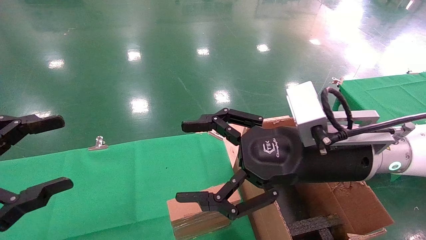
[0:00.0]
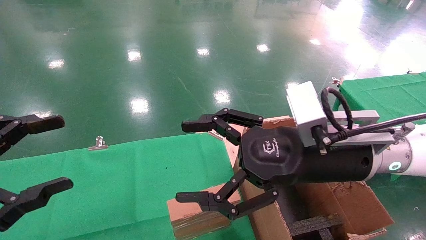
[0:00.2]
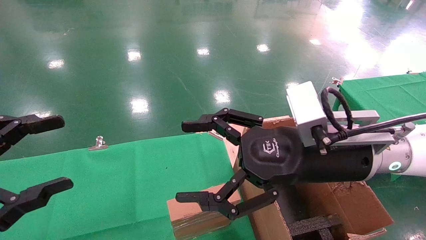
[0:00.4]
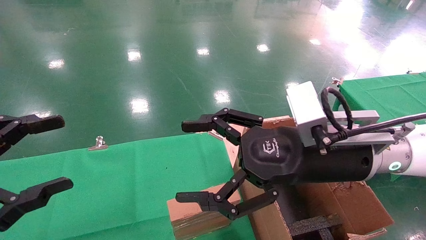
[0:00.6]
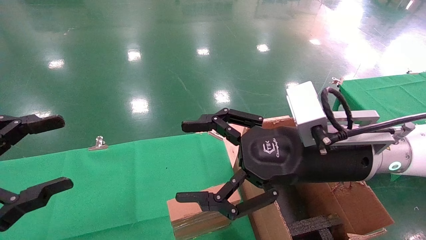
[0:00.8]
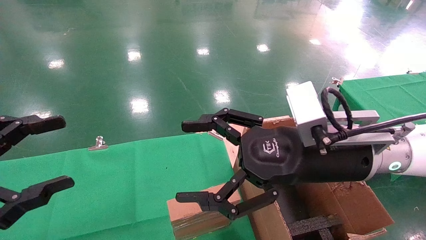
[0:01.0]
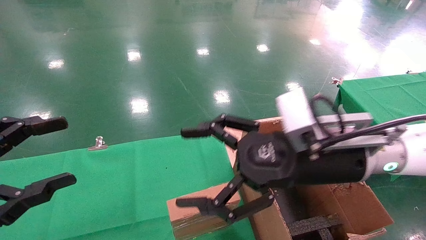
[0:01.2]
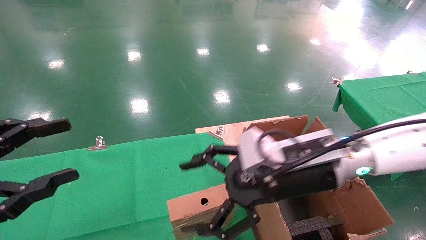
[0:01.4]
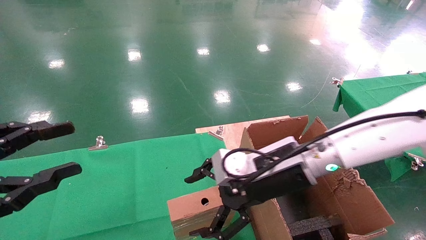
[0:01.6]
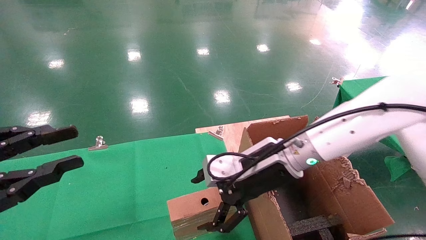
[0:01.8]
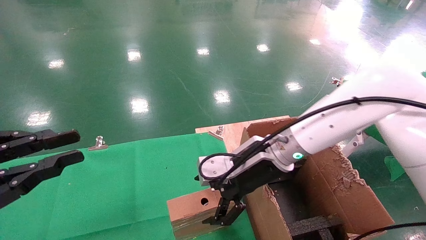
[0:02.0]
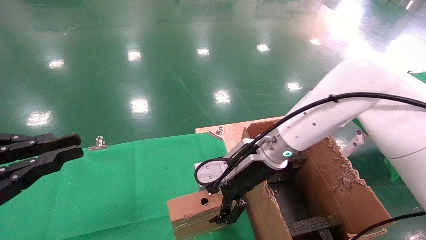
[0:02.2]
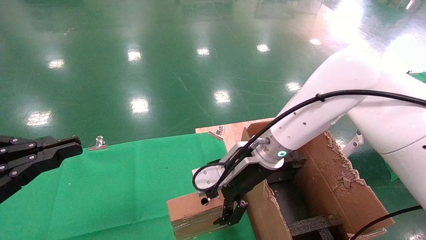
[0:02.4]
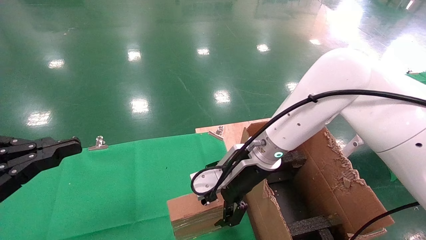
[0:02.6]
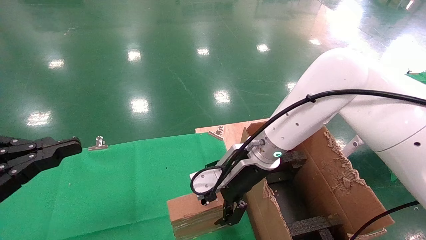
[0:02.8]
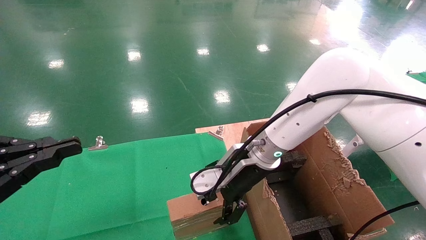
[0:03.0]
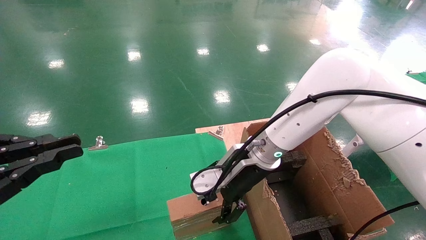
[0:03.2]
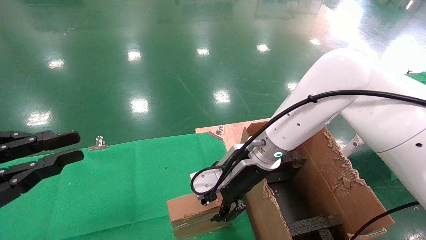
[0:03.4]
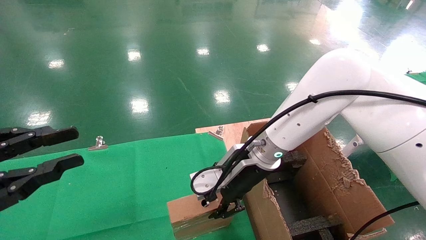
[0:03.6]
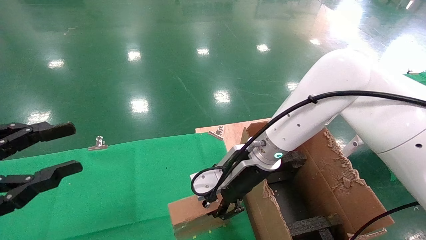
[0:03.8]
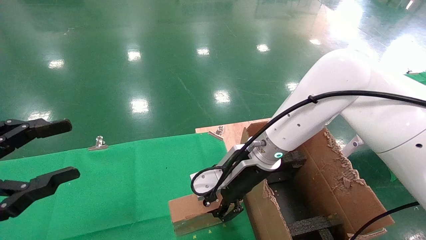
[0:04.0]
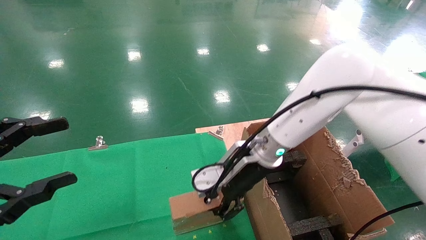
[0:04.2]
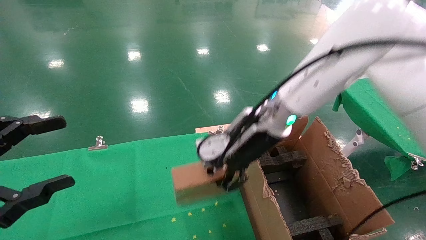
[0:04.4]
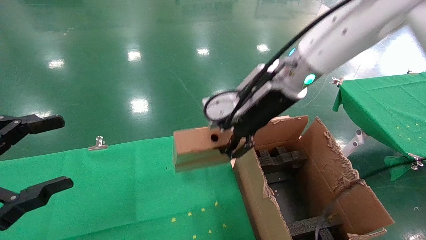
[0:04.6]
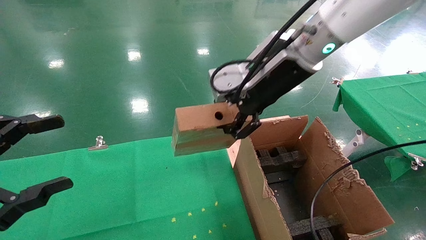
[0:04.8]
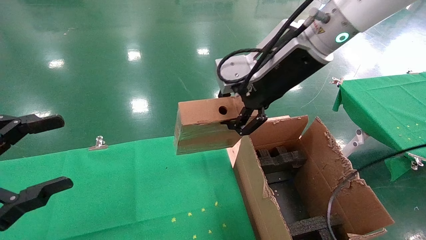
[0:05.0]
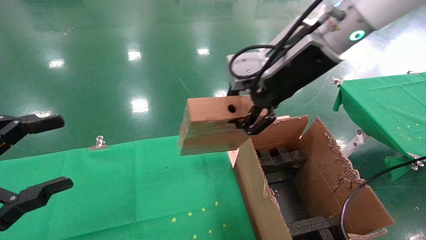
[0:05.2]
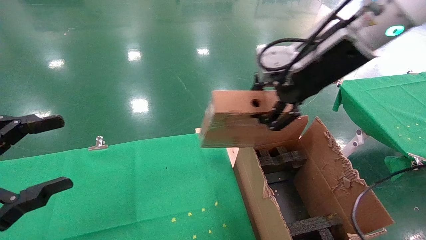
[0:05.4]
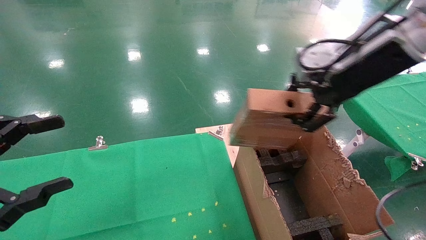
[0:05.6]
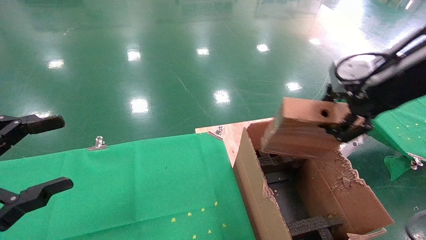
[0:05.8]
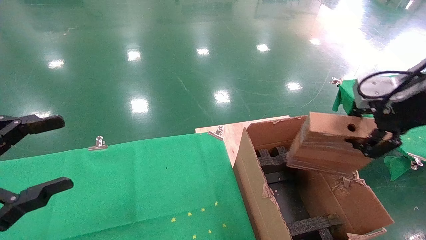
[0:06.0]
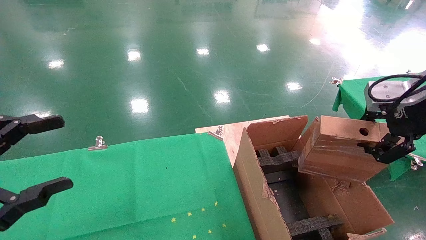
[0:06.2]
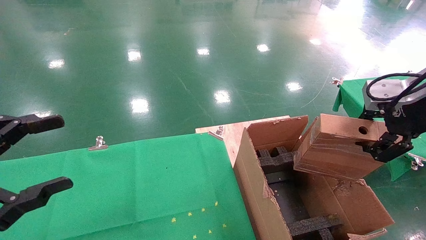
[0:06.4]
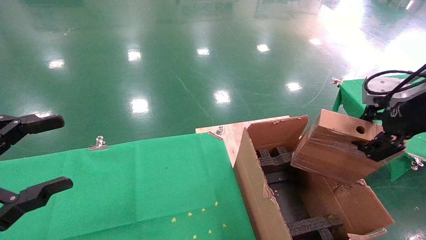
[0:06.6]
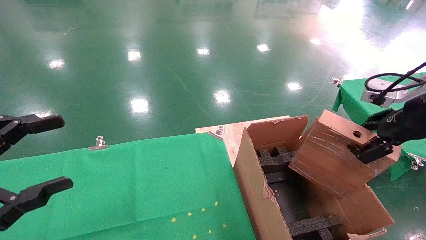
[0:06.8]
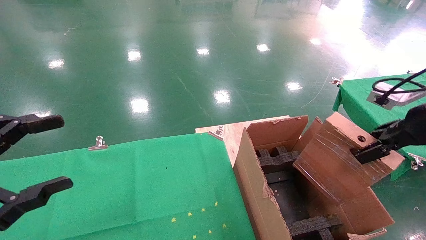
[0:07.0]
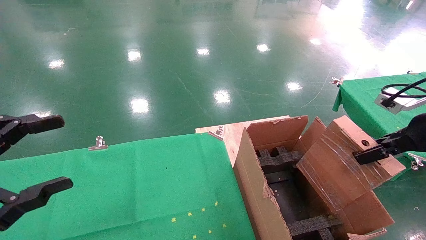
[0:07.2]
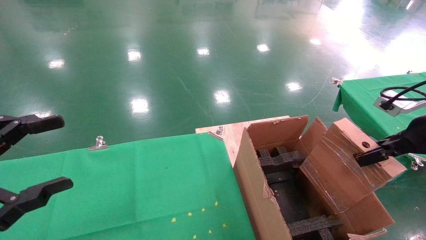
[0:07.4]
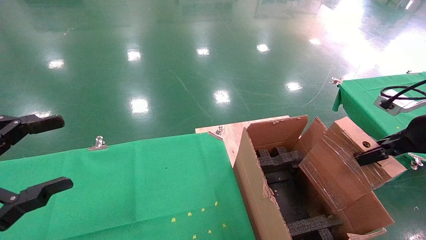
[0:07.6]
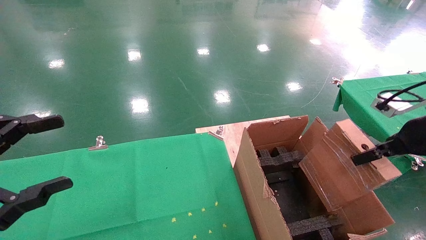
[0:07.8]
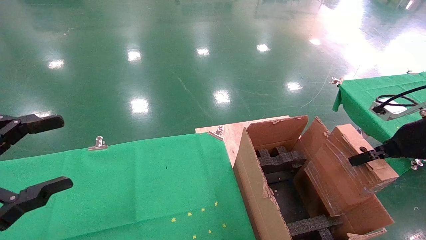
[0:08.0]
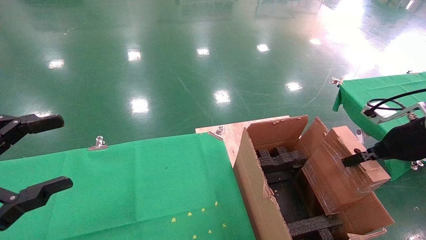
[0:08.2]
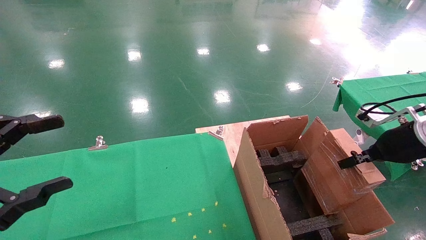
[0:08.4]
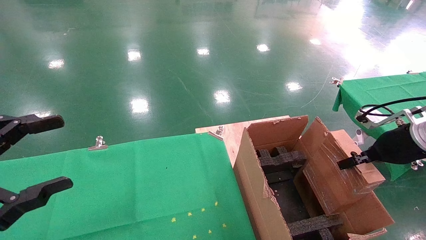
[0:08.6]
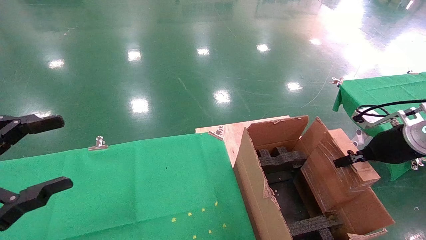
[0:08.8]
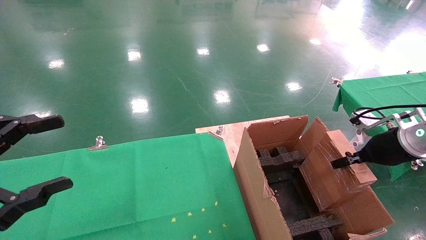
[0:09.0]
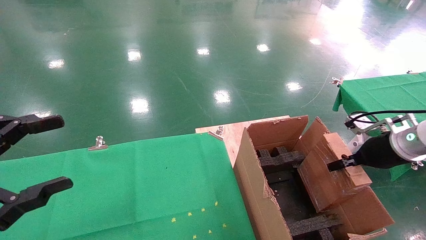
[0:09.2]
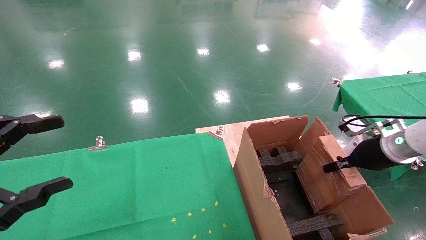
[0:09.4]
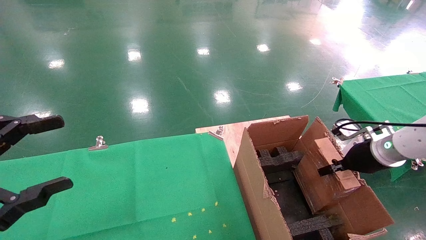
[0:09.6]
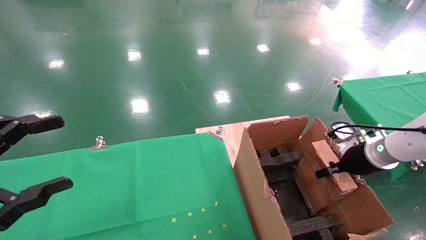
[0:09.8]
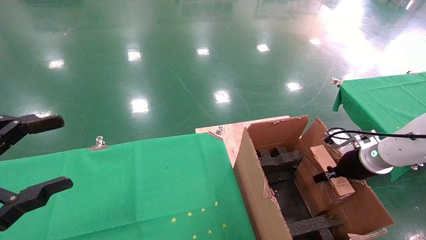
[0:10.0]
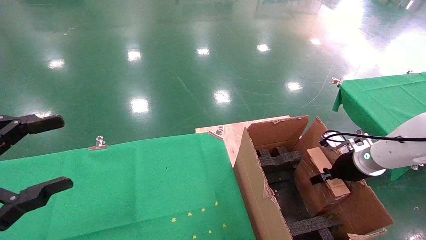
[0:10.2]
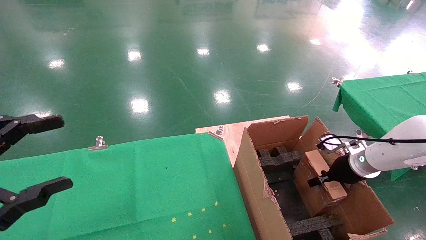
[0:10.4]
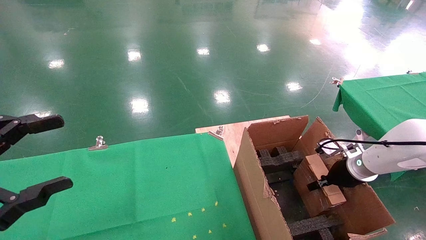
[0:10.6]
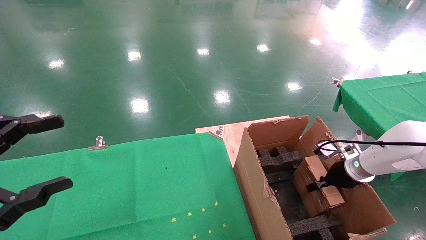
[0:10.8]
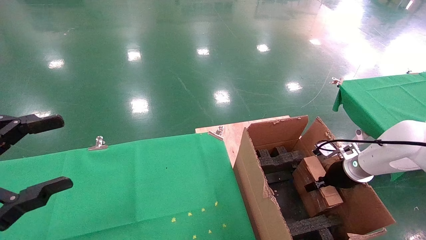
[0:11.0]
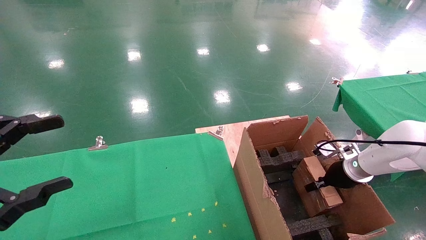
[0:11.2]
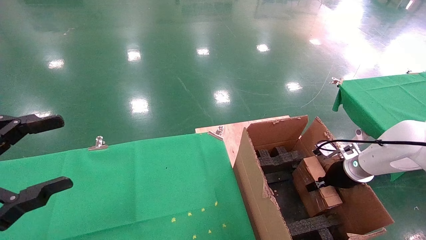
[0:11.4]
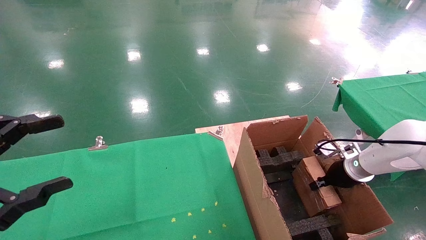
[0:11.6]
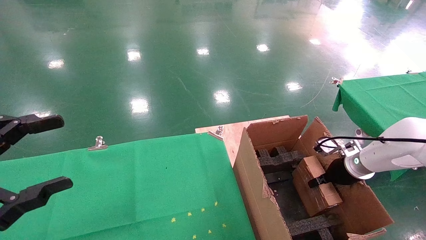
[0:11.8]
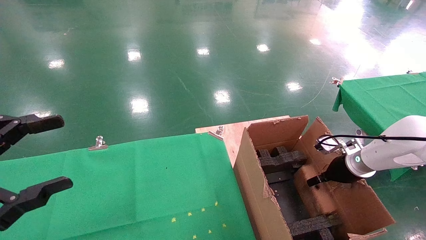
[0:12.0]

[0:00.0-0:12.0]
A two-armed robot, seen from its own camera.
Task of the whole recording: using a robotic arm to pick up a cardboard box and palace it the carton.
Step, 0:01.6 to 0:03.8: Pick up the mouse and the power cord paper box.
0:00.0 to 0:01.6: The right gripper travels forward by roughly 5 cm.
0:01.6 to 0:03.0: The right gripper shifts about 5 cm forward; the left gripper closes.
0:03.0 to 0:04.4: The right gripper goes about 10 cm upward, and closes up; the left gripper opens its fingers.
0:04.4 to 0:06.0: The right gripper shifts roughly 25 cm to the right and backward.
0:06.0 to 0:07.6: The right gripper is displaced downward and to the right by about 10 cm.
0:07.6 to 0:09.0: The right gripper is displaced downward and forward by some 10 cm.
0:09.0 to 0:10.4: The right gripper goes roughly 10 cm downward and forward.
0:10.4 to 0:12.0: The right gripper opens.

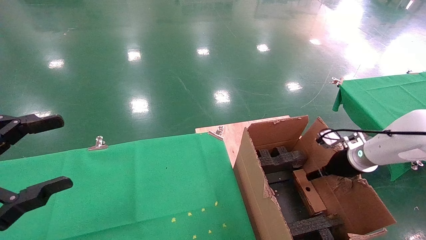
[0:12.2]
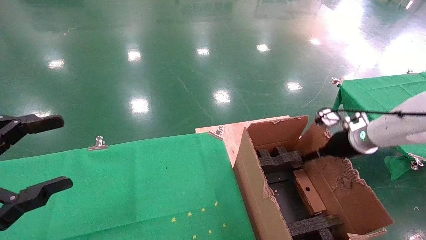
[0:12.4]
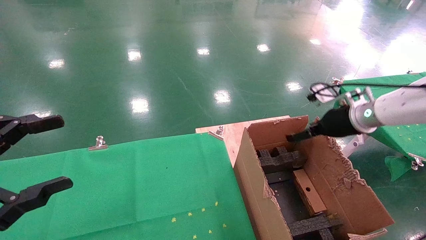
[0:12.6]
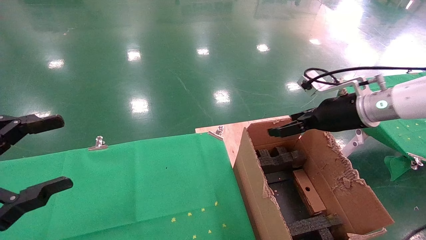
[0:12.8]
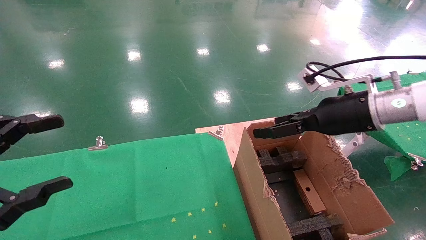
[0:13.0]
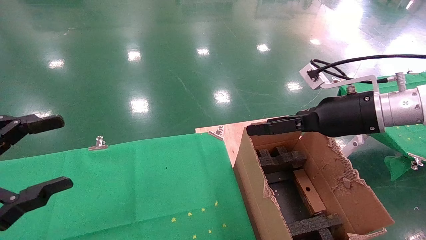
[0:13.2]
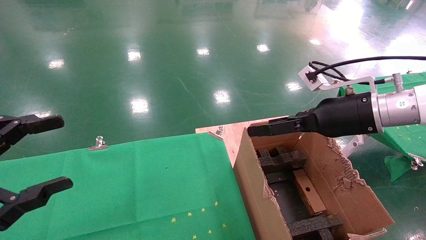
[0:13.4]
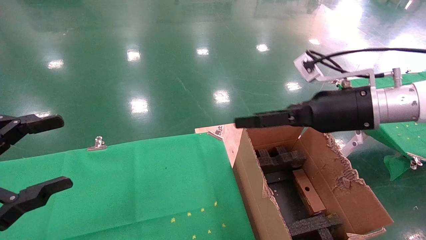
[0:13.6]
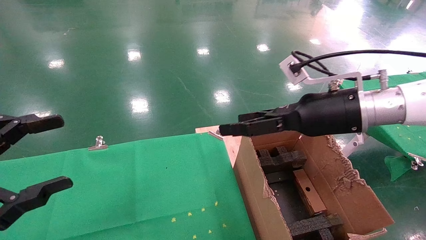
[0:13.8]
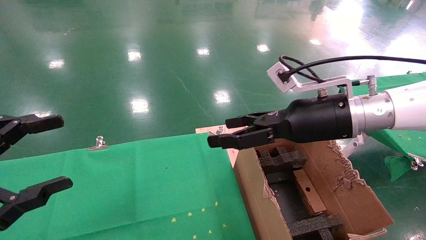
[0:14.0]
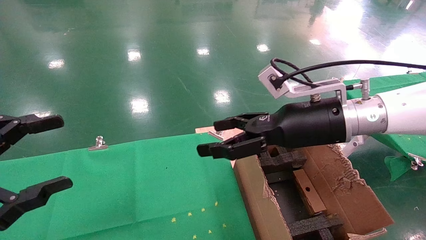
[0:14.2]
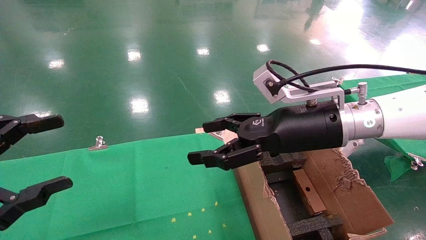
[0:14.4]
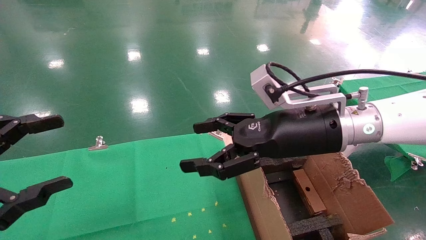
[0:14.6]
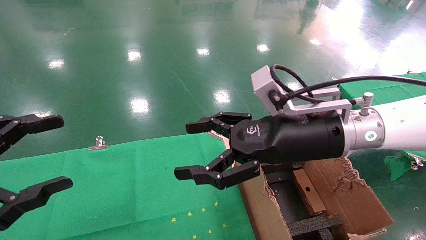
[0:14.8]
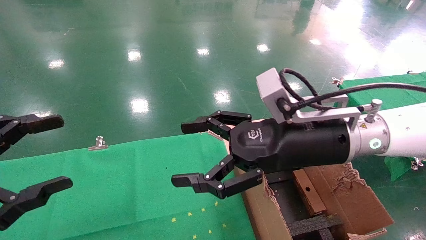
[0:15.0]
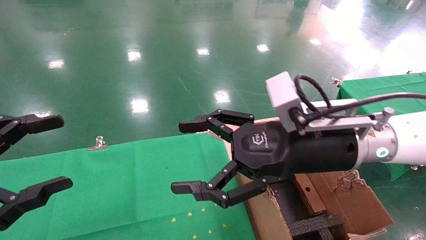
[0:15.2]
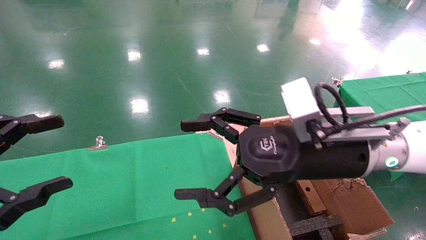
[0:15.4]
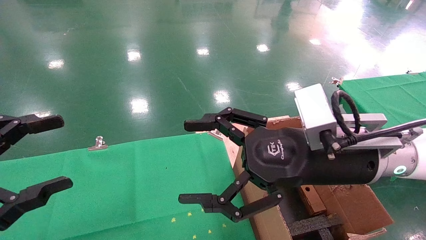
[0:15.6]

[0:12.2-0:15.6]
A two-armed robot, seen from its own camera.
Task of the whole recording: using a robotic arm to pick up a cardboard box and palace it the carton.
0:12.2 to 0:13.8: The right gripper is displaced to the left, upward and backward by roughly 25 cm, and opens.
0:13.8 to 0:15.6: The right gripper heads backward and to the left, covering some 10 cm.

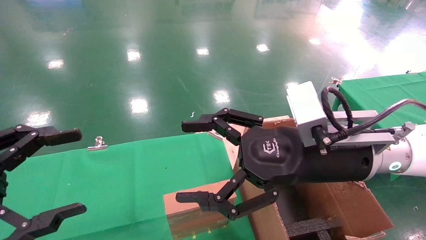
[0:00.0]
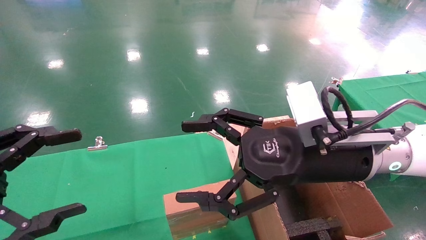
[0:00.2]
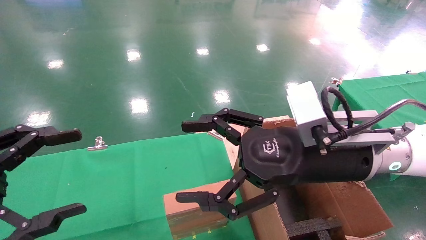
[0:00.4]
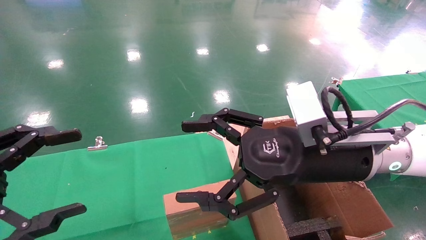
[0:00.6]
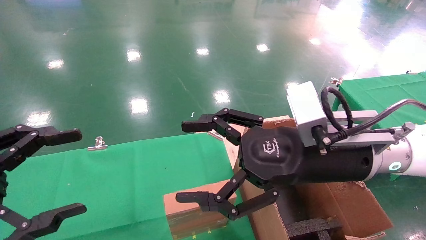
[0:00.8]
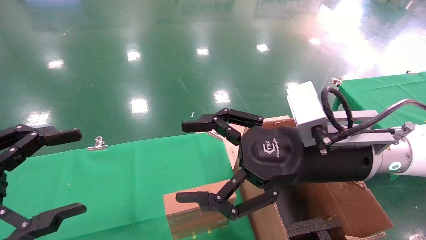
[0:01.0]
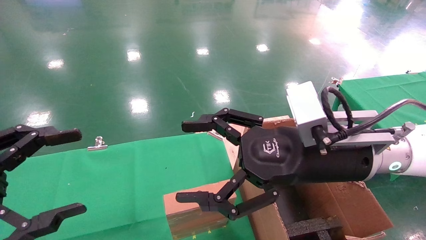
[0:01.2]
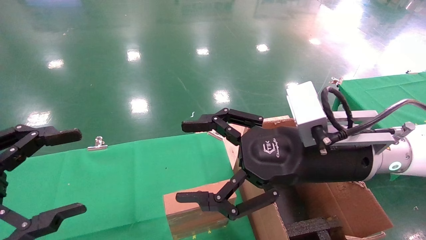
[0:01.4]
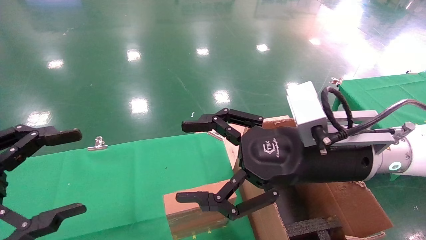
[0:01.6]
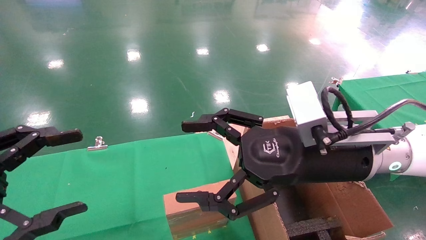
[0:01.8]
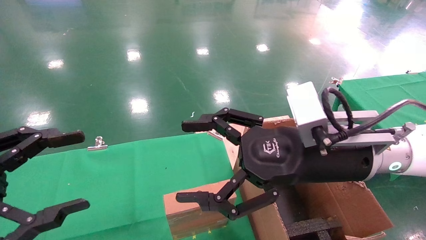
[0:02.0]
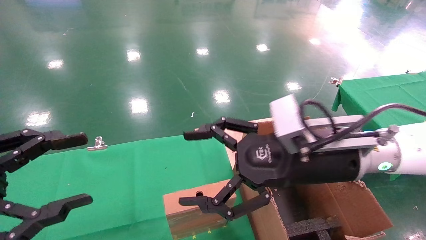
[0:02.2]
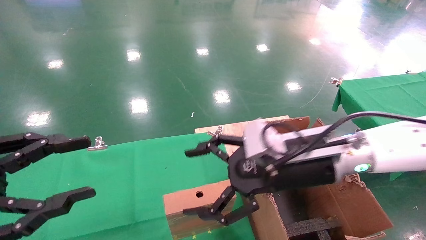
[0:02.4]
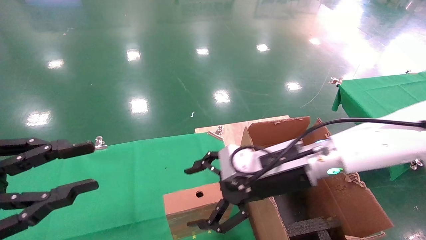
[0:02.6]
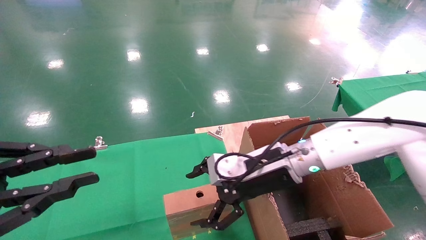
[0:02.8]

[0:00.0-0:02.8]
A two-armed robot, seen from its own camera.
Task of the whole recording: using a robotic arm to pick up a cardboard box and palace it the carton.
0:00.0 to 0:01.4: Both grippers stay about where they are.
0:01.4 to 0:02.8: The left gripper closes, while the right gripper shifts roughly 10 cm forward and downward.
